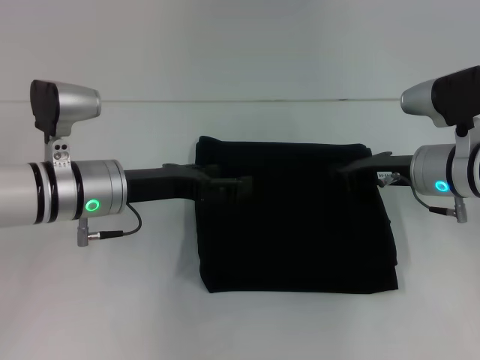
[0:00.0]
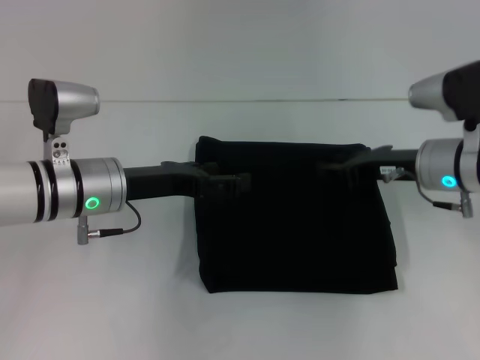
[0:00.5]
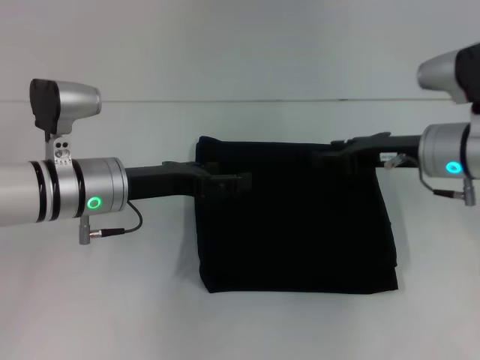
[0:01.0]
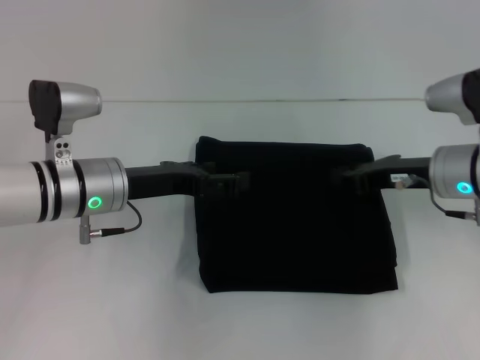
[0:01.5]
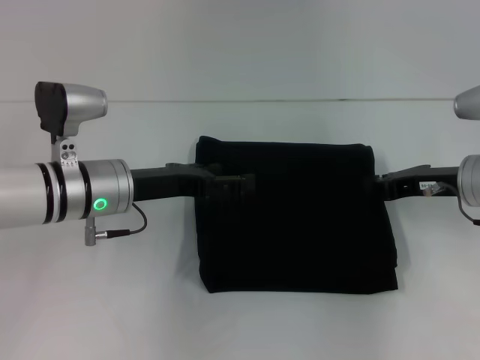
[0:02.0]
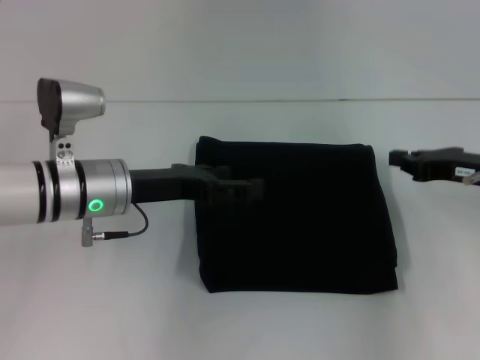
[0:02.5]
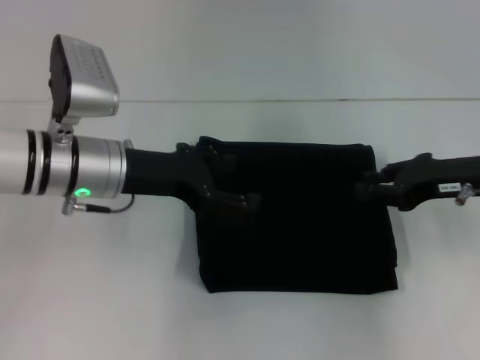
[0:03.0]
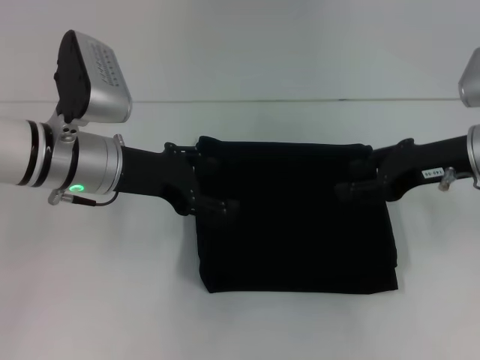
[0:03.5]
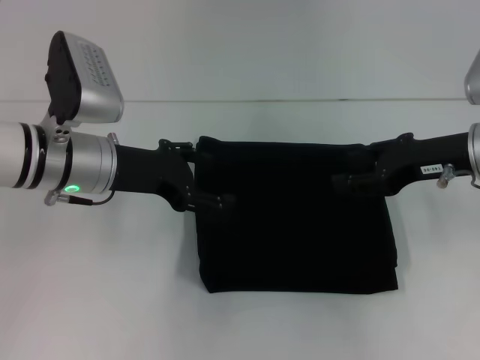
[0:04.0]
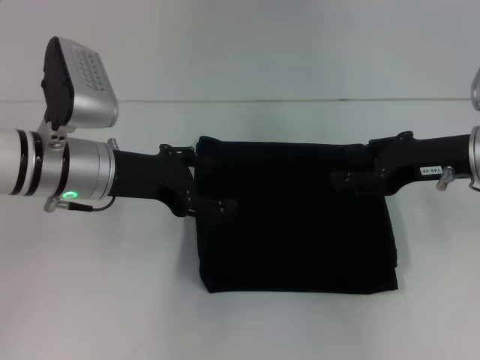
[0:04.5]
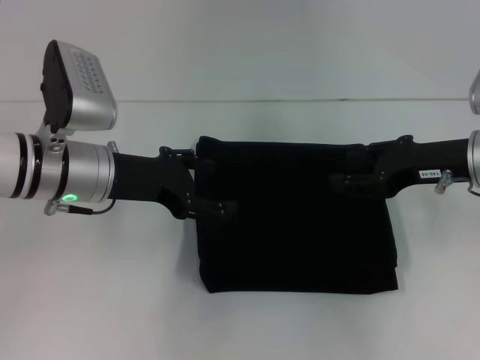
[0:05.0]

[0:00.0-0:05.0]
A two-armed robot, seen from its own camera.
0:00.0 to 0:02.5: The right gripper goes roughly 10 cm to the right, and opens, then closes once more.
0:02.5 to 0:05.0: The right gripper moves some 5 cm, and opens.

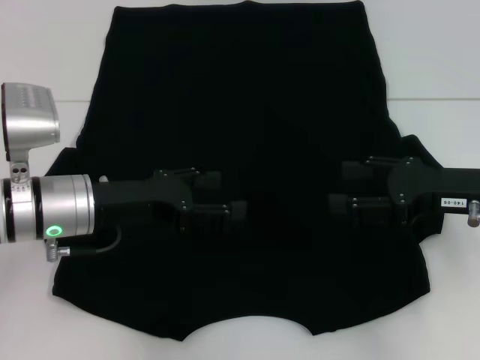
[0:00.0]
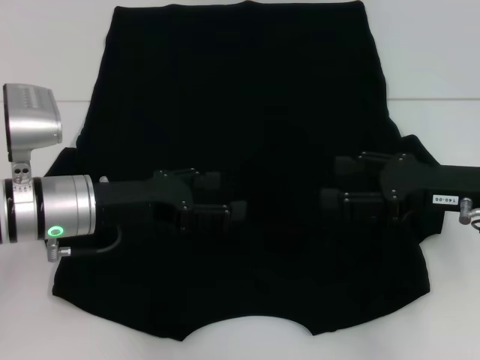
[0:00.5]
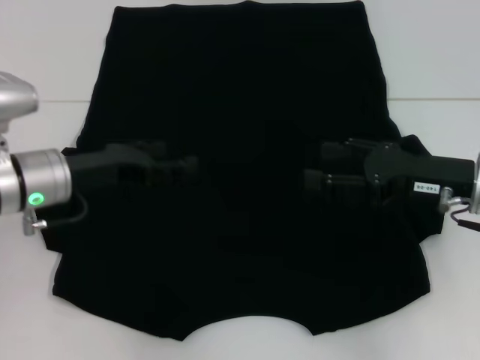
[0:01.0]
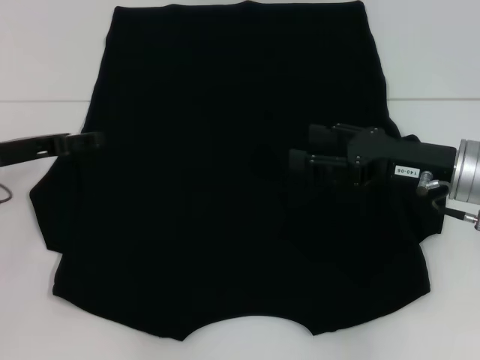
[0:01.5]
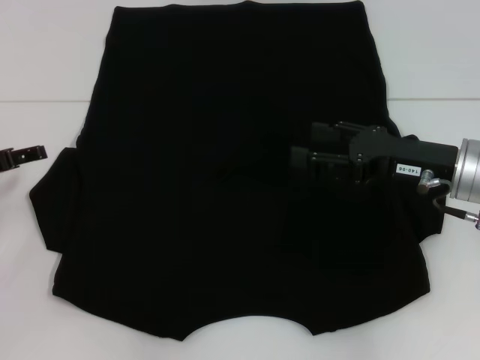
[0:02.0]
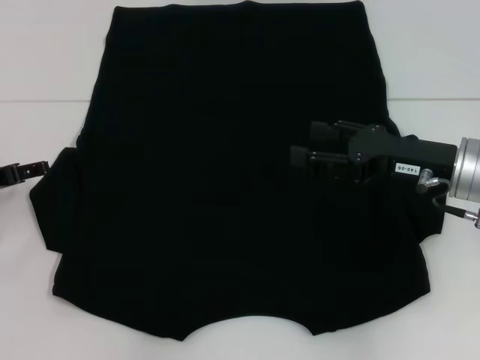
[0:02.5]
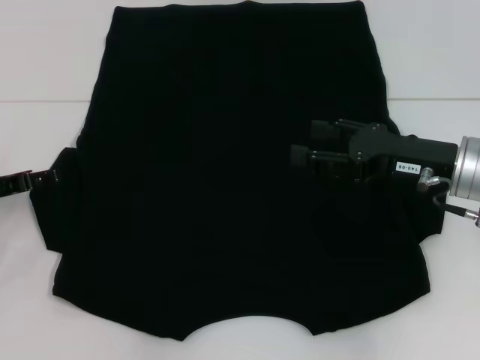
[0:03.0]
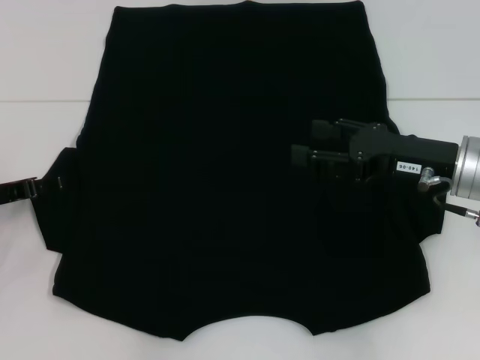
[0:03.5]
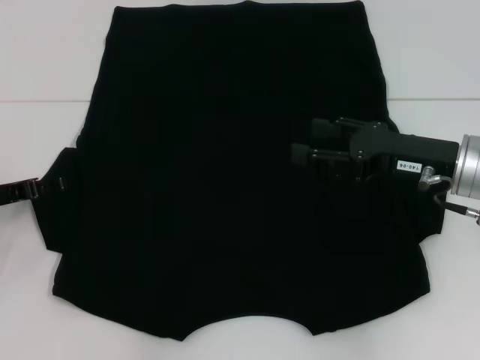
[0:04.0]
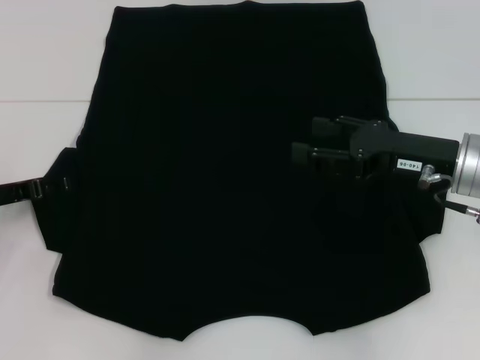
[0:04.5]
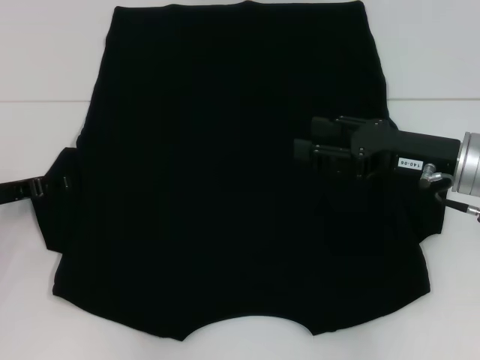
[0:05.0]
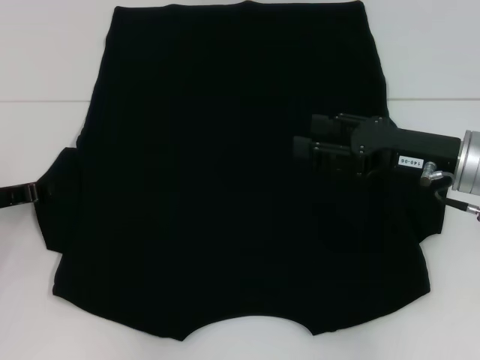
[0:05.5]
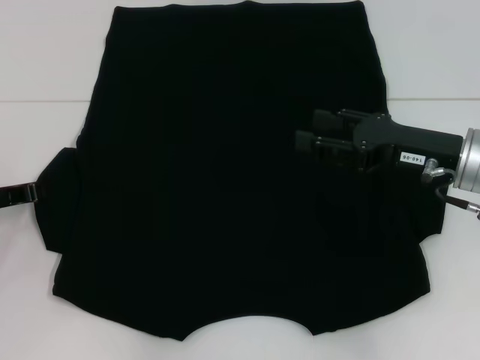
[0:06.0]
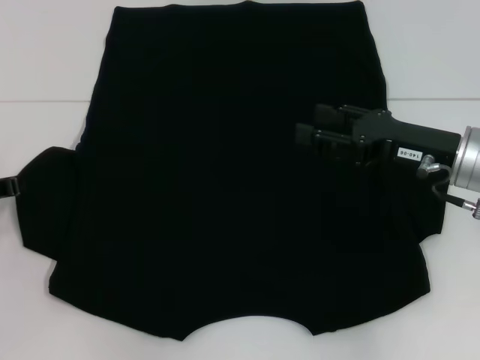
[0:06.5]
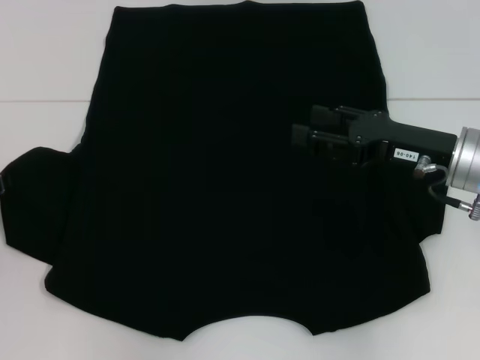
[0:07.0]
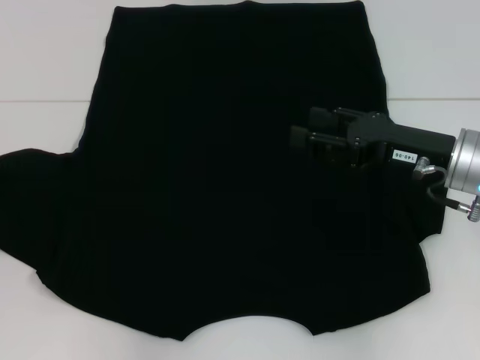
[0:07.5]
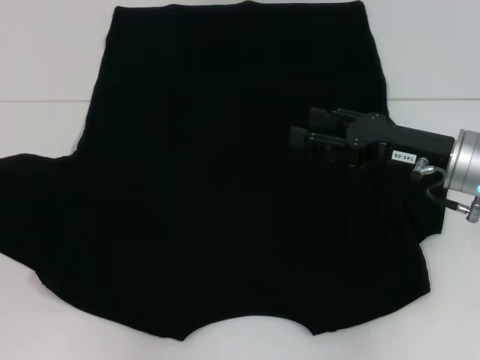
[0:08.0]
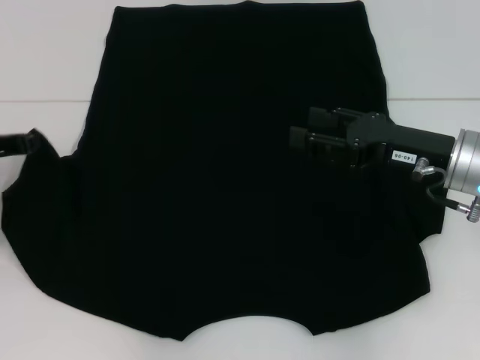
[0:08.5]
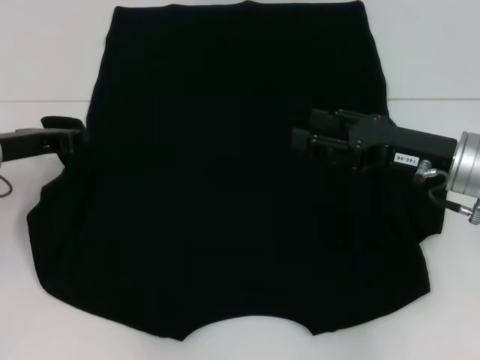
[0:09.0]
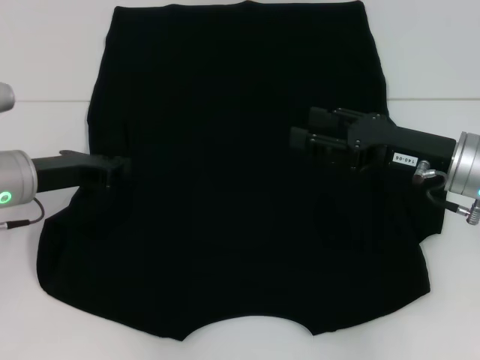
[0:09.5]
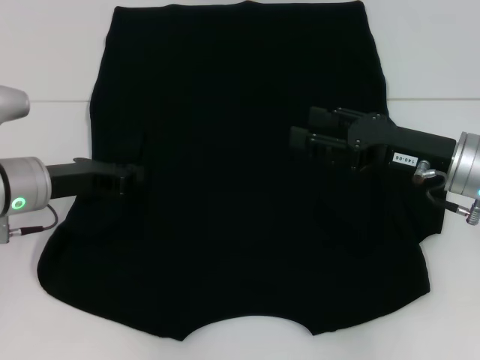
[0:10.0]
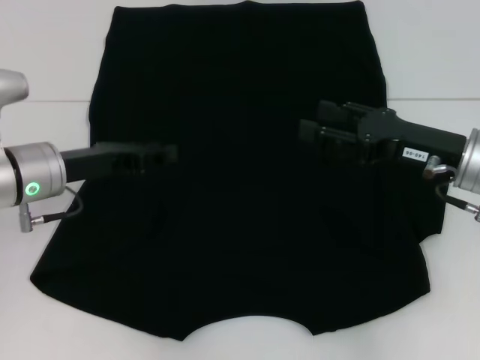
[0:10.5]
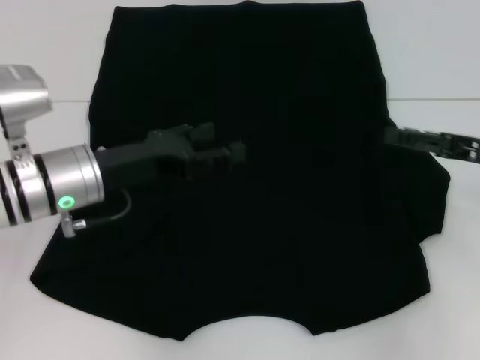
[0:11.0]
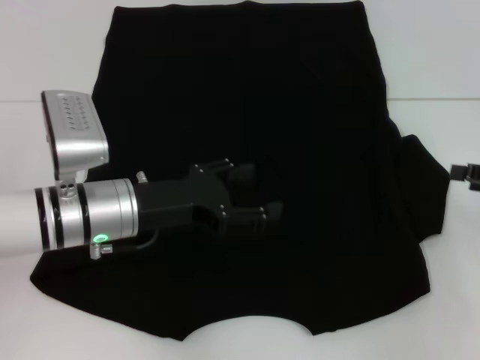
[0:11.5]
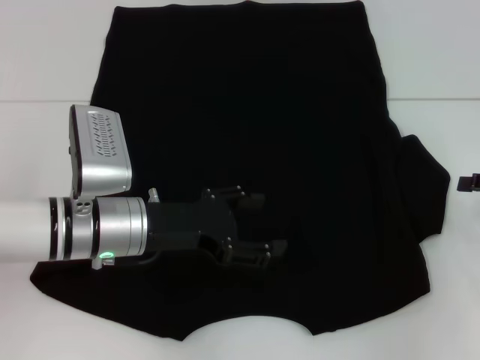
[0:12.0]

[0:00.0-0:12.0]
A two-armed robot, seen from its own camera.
Step, 0:00.0 to 0:10.5: Fold the bottom left sleeve with your left hand.
0:00.0 to 0:02.0: The left gripper is displaced to the left by some 15 cm.
0:02.0 to 0:04.0: The grippers make only small movements.
0:06.0 to 0:08.0: The grippers move only a little.
0:08.0 to 0:10.0: The left gripper moves to the right, about 10 cm.
0:10.0 to 0:12.0: The right gripper goes some 15 cm to the right. Meanwhile the left gripper heads to the right, covering about 10 cm, and opens up.

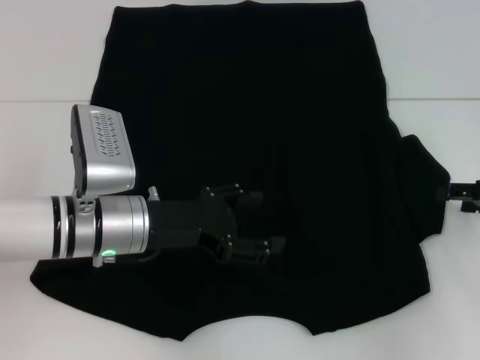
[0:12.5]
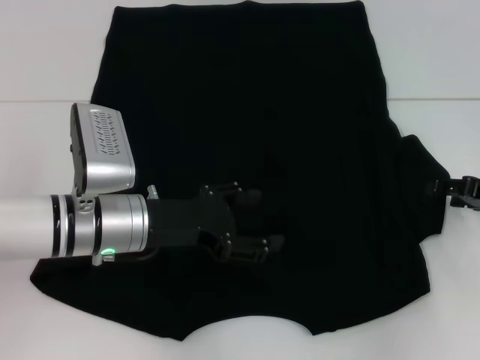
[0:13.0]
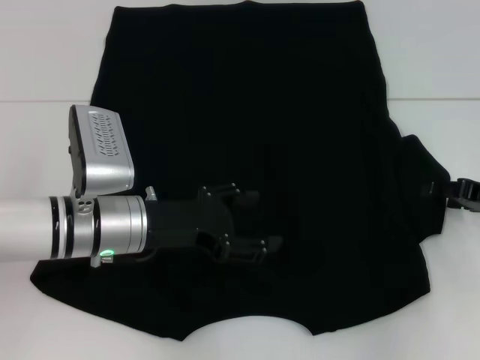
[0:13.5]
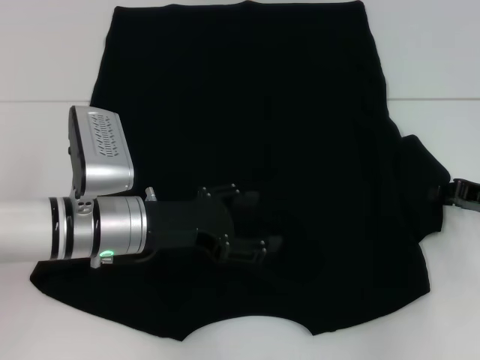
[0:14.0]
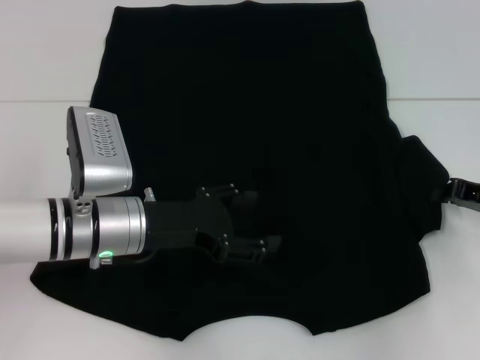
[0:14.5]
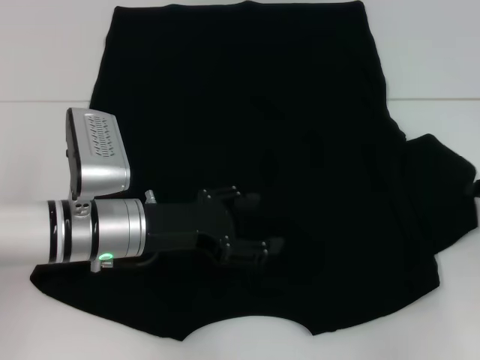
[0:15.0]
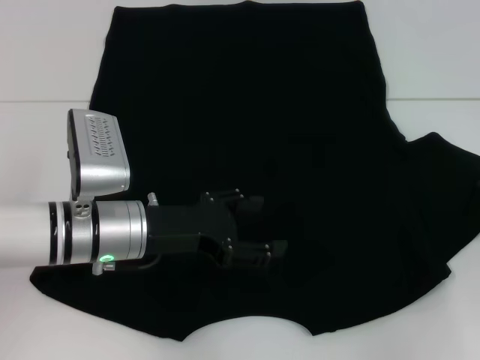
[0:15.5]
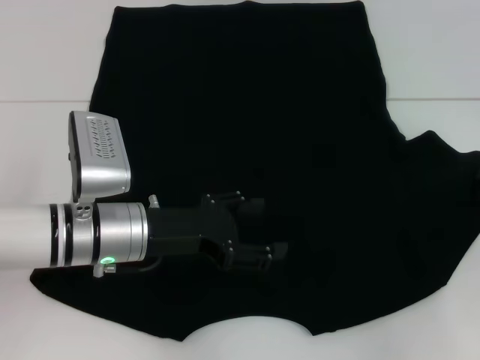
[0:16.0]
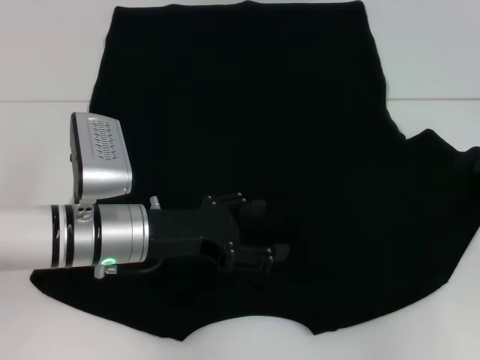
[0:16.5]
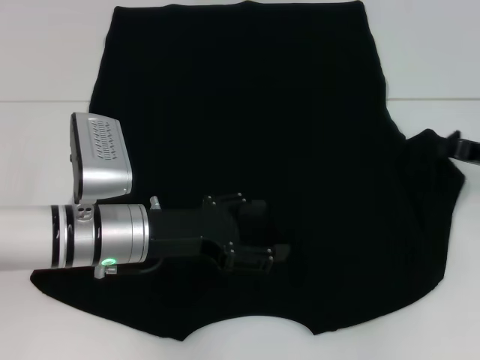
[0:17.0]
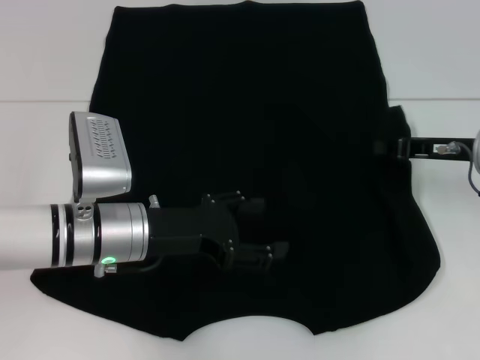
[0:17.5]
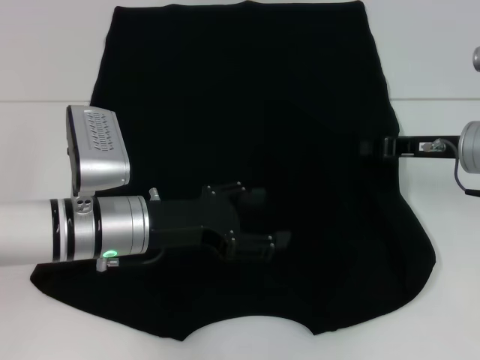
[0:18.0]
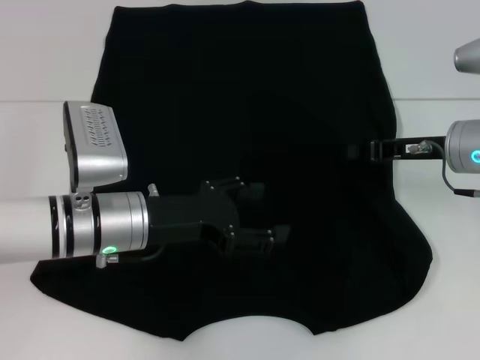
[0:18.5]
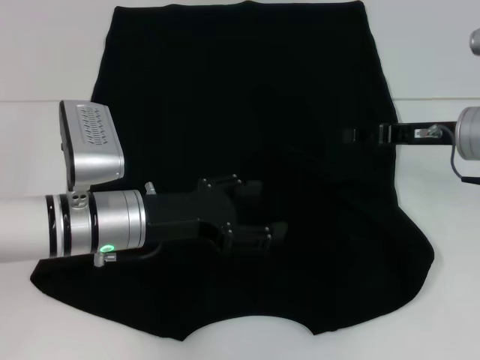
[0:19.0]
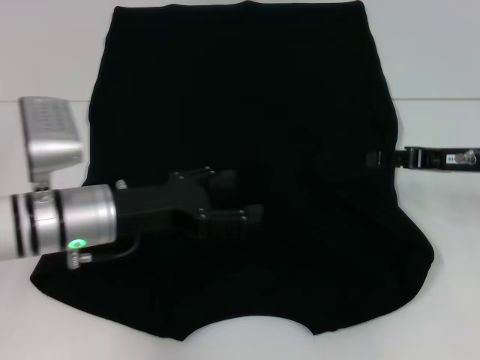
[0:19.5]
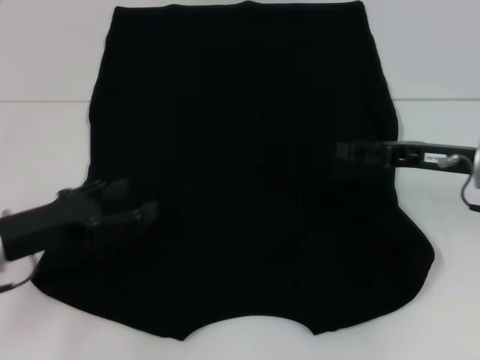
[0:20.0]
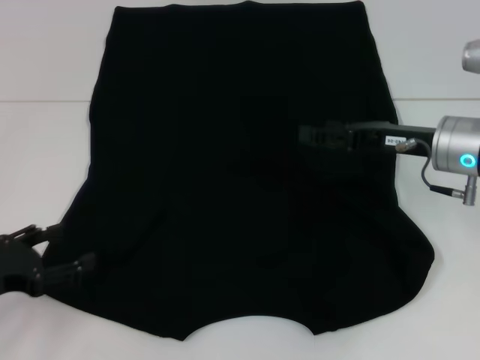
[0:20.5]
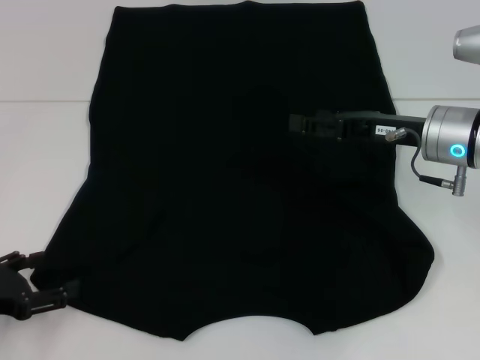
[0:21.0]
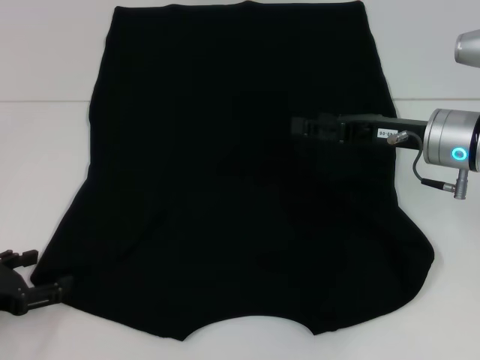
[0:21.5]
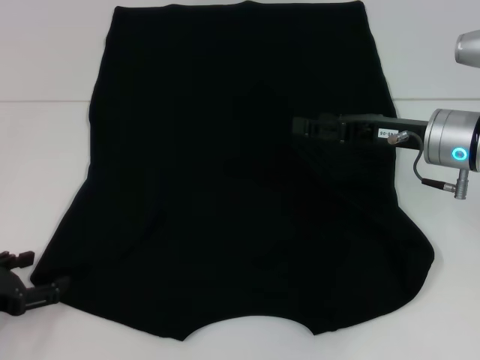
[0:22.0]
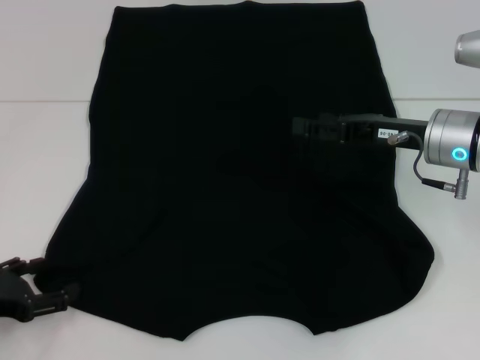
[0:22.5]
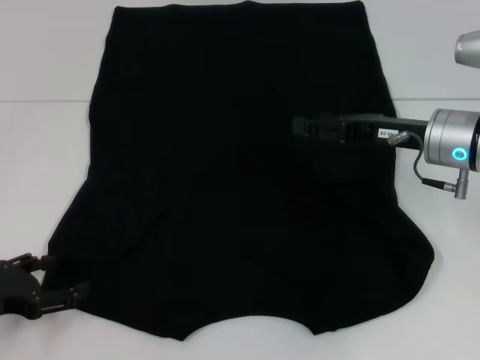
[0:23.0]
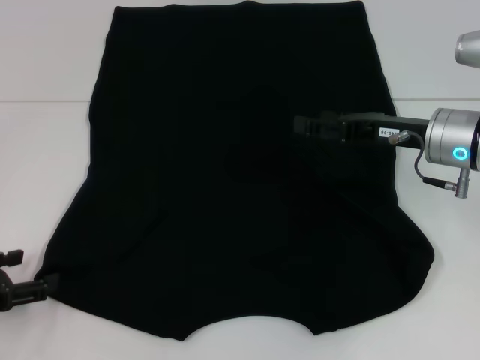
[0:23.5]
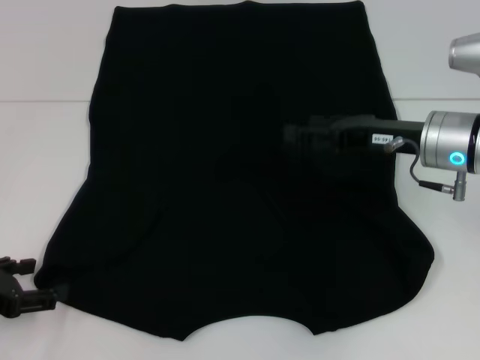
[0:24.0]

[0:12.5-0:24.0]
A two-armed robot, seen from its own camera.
Step, 0:12.5 to 0:19.5: Fold the bottom right sleeve with your right hand.
0:12.5 to 0:14.5: The right gripper closes its fingers.
0:14.5 to 0:16.5: There are only small adjustments of the grippers.
0:16.5 to 0:18.5: The right gripper travels to the left by roughly 10 cm.
0:18.5 to 0:20.0: The right gripper opens; the left gripper goes approximately 10 cm to the left.
0:20.0 to 0:22.0: The left gripper goes roughly 5 cm to the left. Meanwhile the right gripper moves about 5 cm.
0:22.0 to 0:24.0: The grippers make only small movements.
